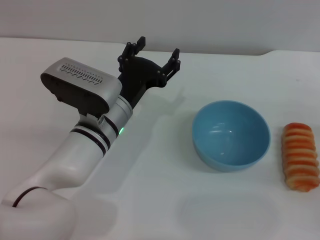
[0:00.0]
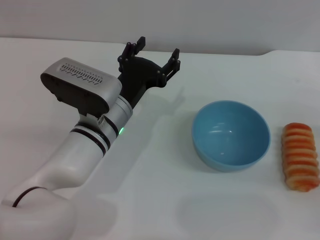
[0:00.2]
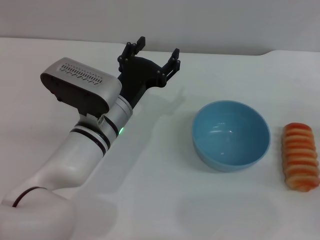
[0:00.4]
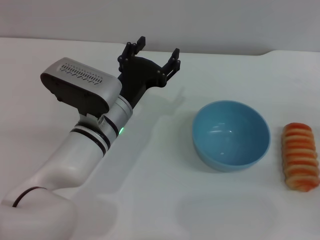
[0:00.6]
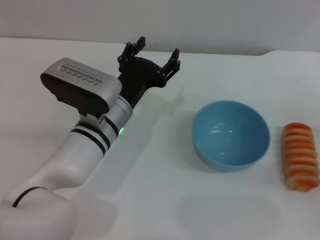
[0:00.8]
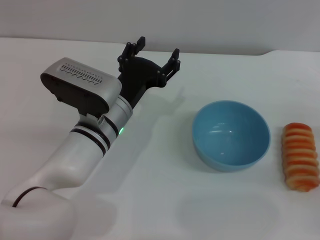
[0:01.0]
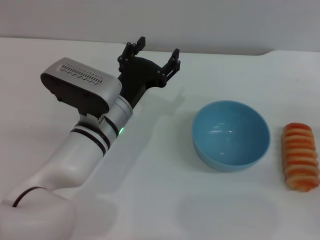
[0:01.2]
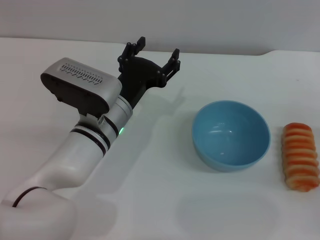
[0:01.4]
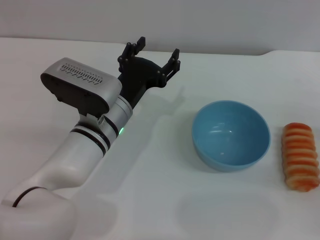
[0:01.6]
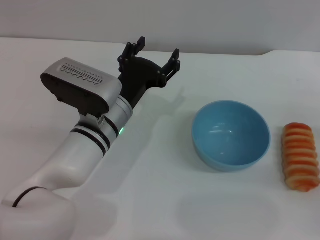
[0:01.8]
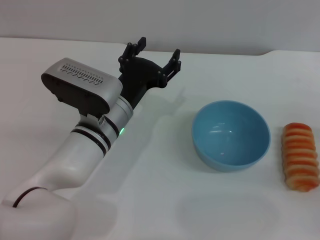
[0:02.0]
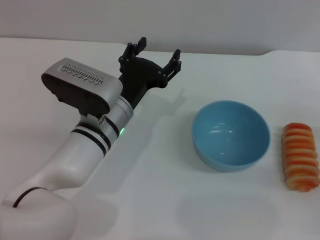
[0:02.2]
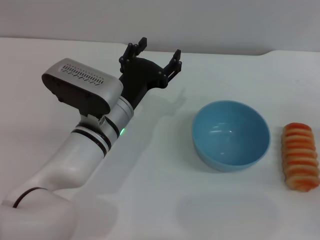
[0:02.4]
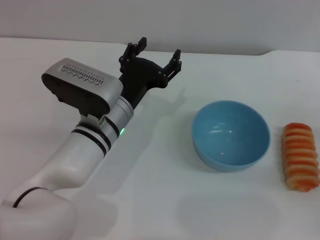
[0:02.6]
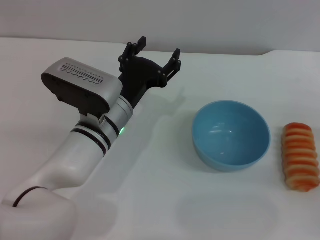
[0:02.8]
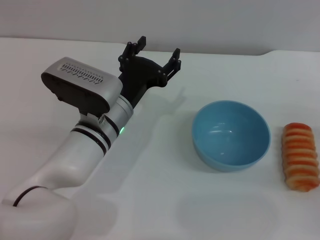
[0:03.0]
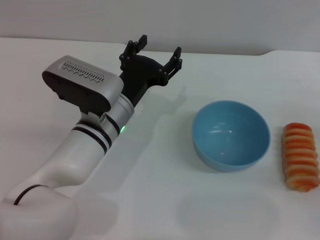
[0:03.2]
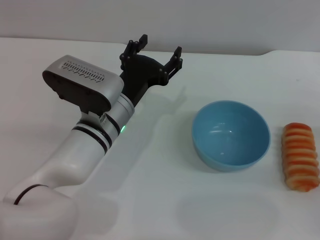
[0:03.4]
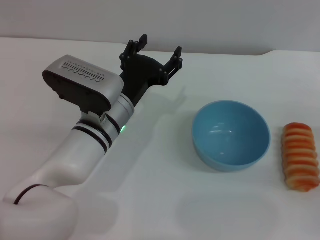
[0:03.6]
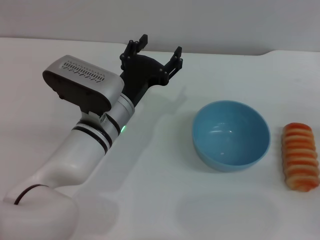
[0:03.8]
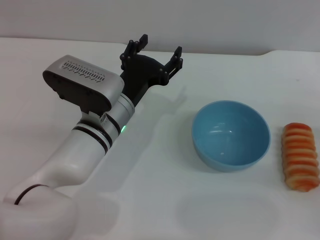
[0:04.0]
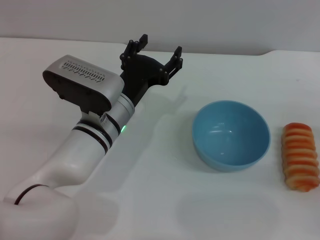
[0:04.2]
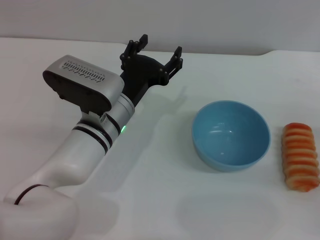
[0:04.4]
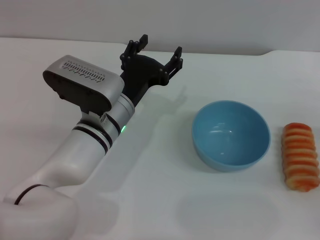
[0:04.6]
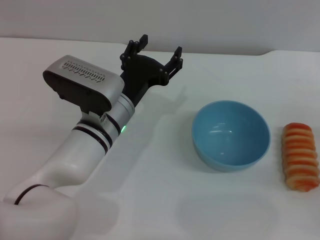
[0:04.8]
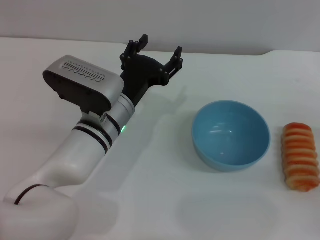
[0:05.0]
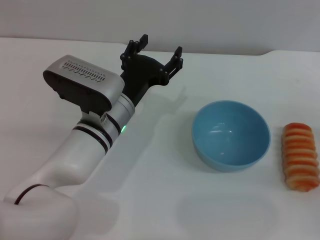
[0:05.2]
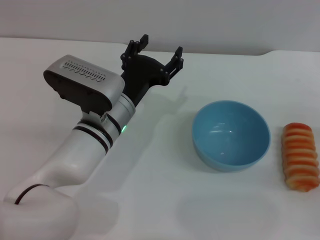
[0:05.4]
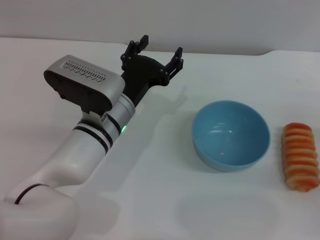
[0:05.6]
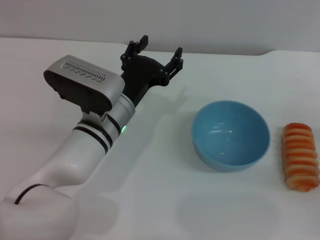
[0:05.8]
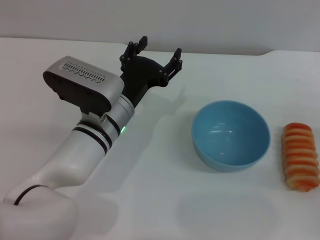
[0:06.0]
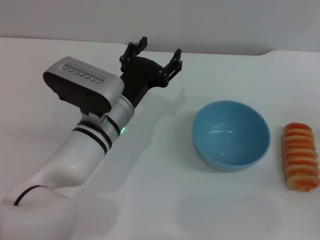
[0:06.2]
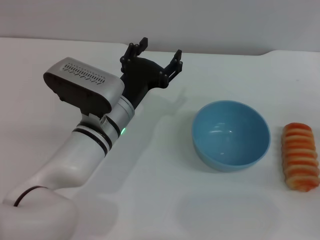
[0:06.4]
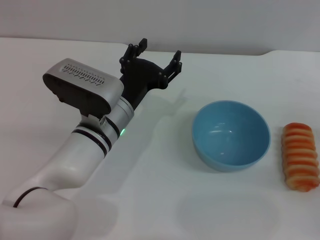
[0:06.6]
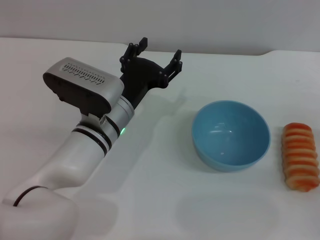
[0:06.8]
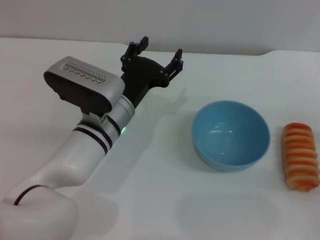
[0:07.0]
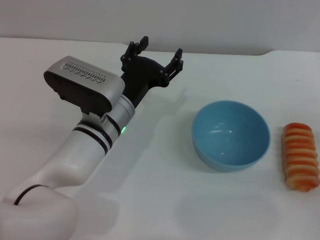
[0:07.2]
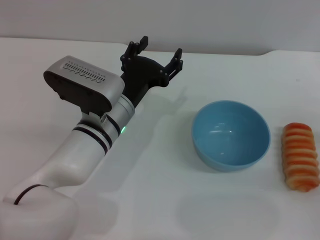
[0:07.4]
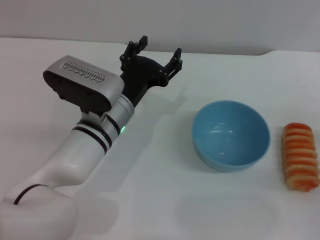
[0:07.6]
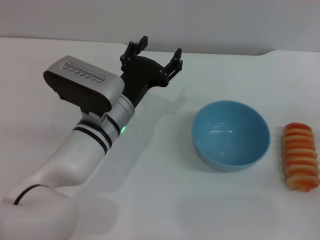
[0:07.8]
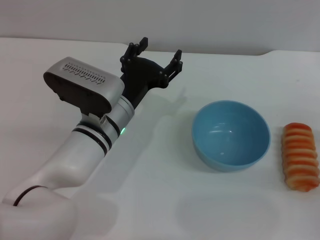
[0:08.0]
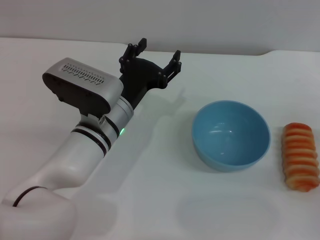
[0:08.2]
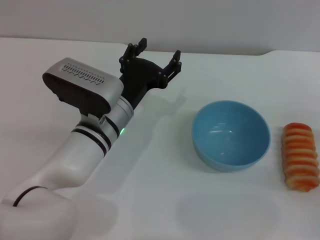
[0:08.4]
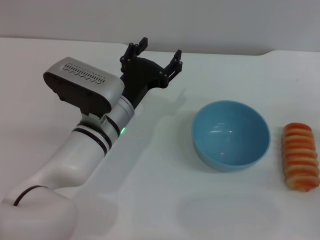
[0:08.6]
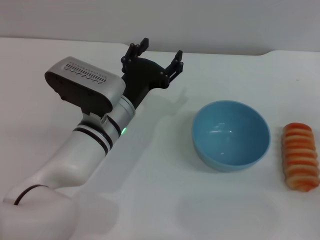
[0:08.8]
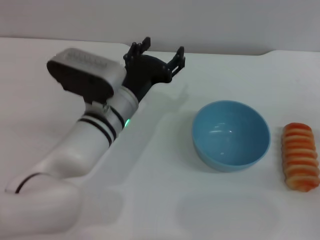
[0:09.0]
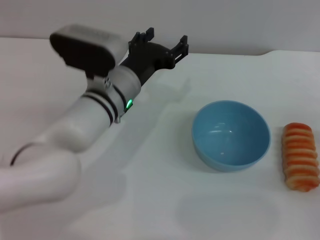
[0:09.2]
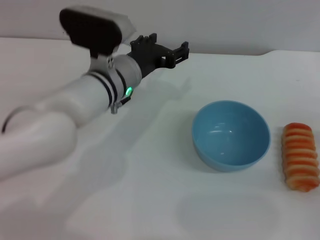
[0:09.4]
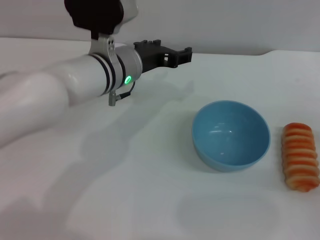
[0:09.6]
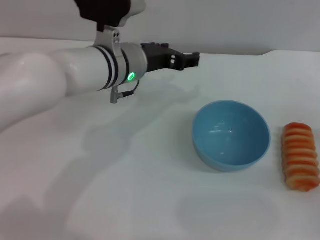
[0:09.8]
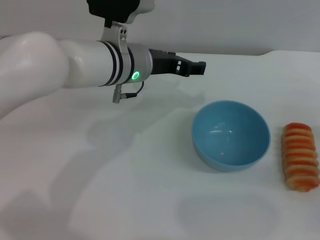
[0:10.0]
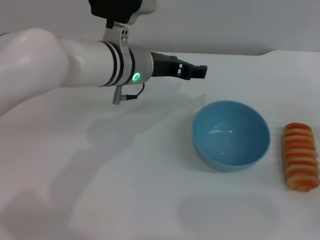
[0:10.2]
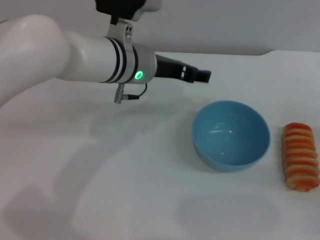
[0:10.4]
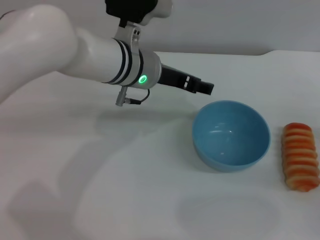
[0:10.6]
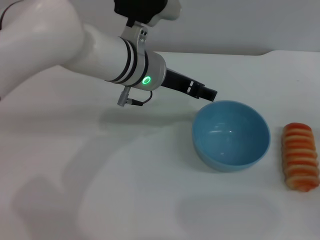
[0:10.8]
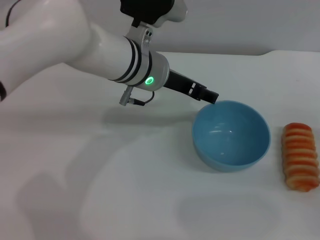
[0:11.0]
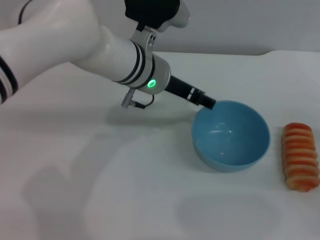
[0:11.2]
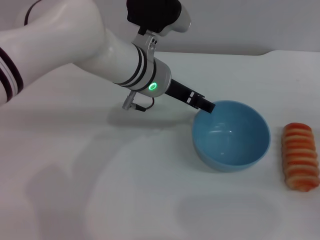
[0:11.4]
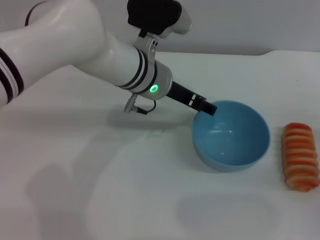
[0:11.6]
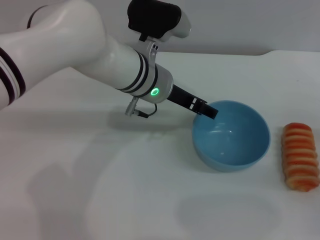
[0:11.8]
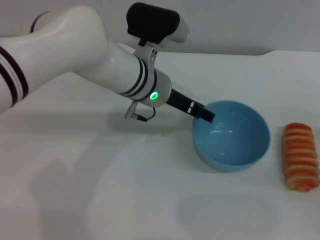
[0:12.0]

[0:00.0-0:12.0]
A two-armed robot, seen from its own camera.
Task of the whole recording: put the bread into the blue bowl and pour it out repeatedly.
0:00.0 to 0:06.0: Neither gripper changes place.
0:06.0 to 0:07.6: Both grippers stay put.
0:07.6 to 0:09.0: The grippers make only small movements.
0:09.0 to 0:10.4: The left gripper shifts about 10 cm upward and forward.
0:10.4 to 0:12.0: The grippers move only a little.

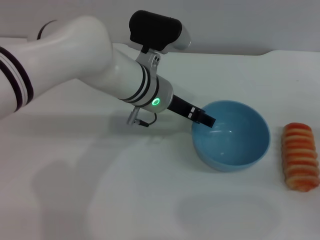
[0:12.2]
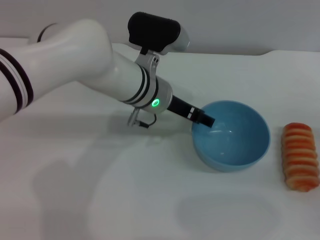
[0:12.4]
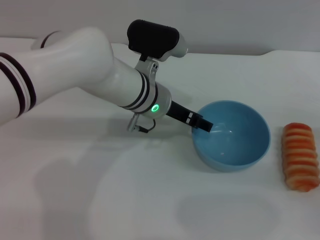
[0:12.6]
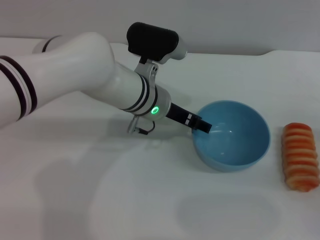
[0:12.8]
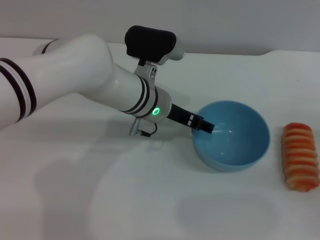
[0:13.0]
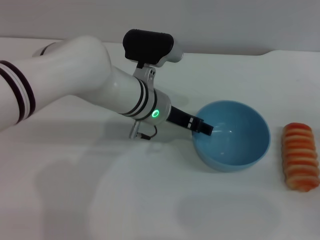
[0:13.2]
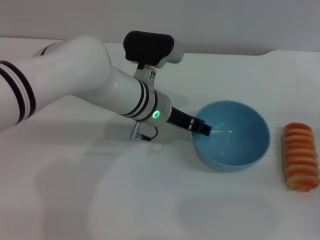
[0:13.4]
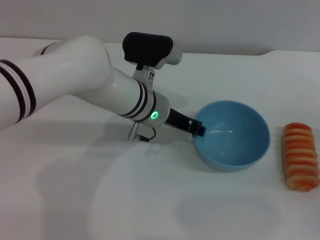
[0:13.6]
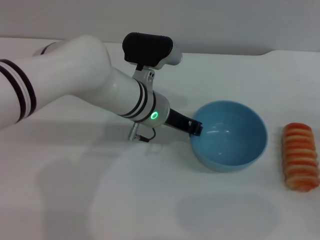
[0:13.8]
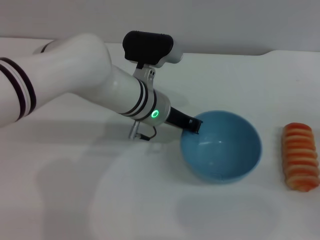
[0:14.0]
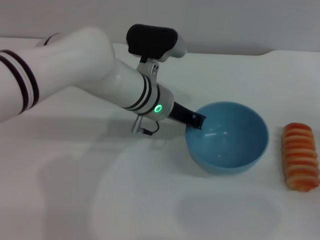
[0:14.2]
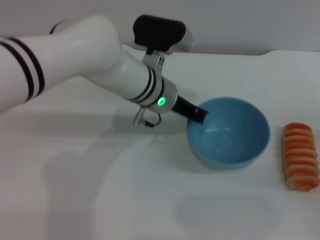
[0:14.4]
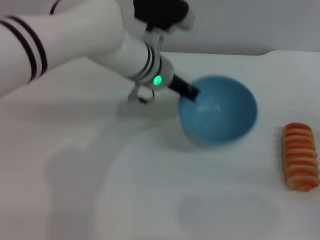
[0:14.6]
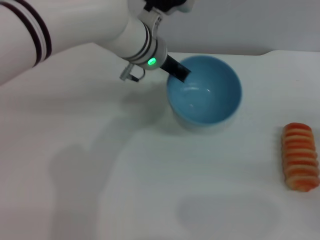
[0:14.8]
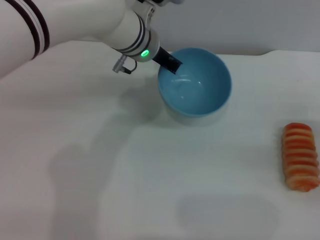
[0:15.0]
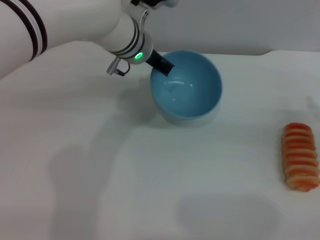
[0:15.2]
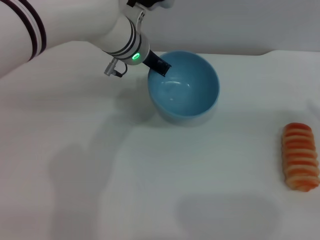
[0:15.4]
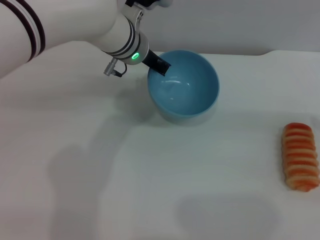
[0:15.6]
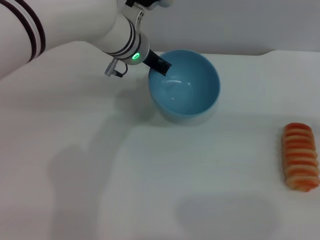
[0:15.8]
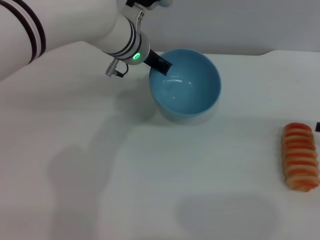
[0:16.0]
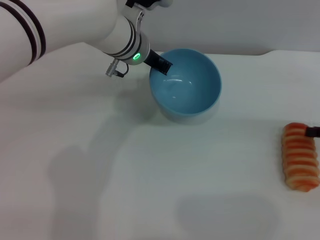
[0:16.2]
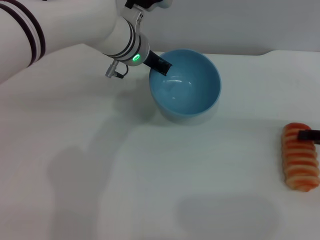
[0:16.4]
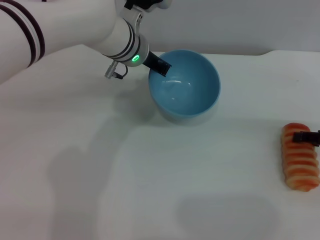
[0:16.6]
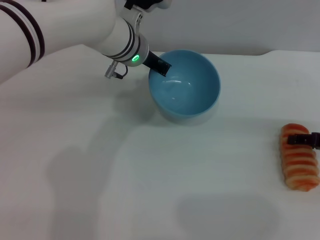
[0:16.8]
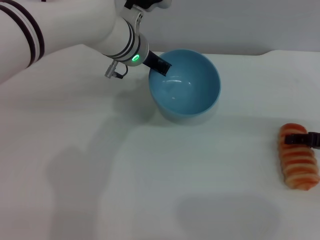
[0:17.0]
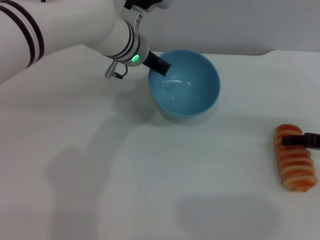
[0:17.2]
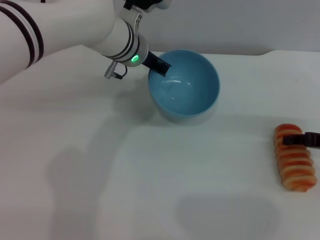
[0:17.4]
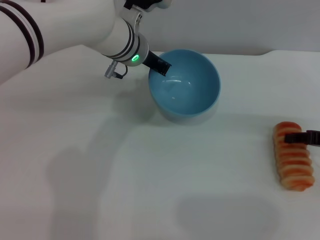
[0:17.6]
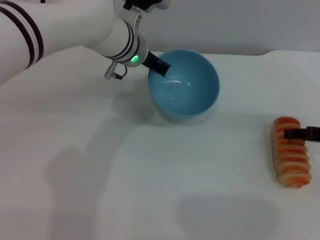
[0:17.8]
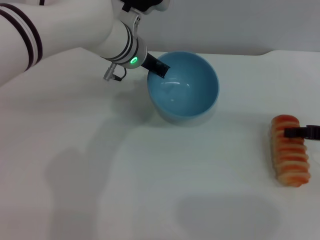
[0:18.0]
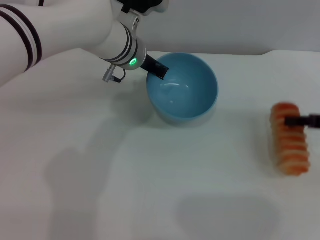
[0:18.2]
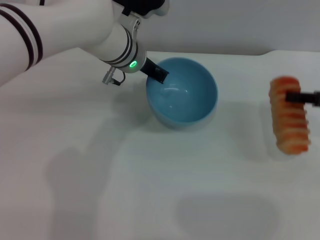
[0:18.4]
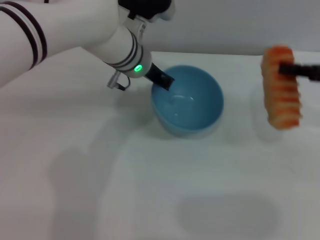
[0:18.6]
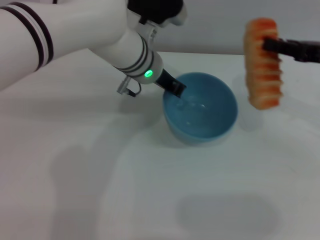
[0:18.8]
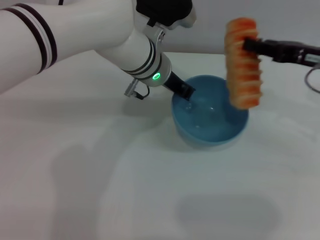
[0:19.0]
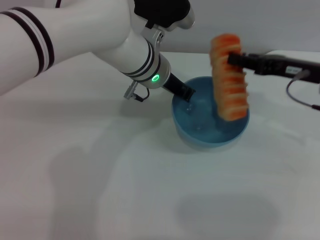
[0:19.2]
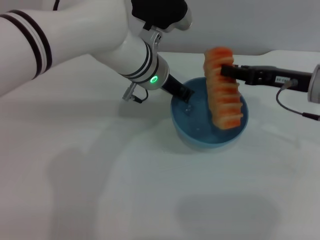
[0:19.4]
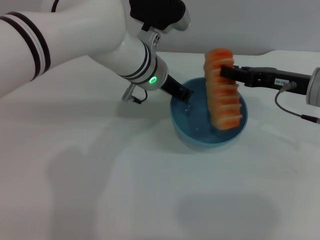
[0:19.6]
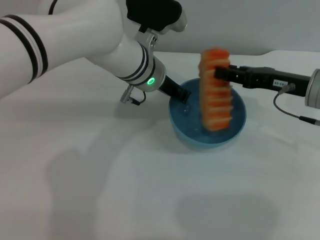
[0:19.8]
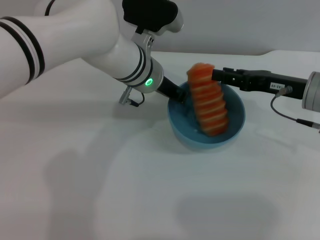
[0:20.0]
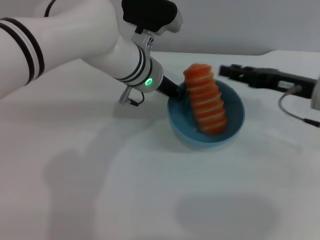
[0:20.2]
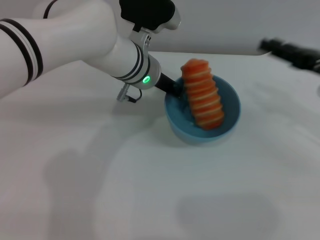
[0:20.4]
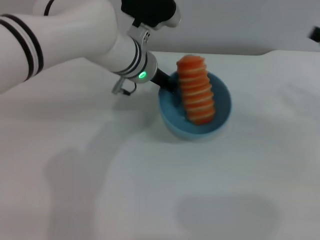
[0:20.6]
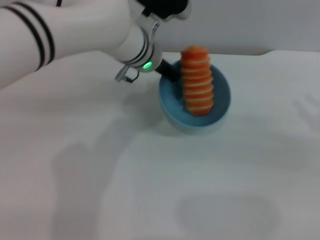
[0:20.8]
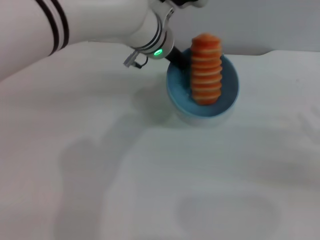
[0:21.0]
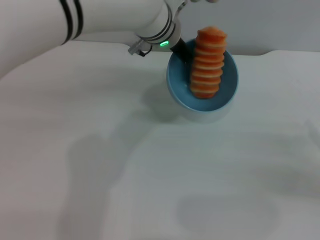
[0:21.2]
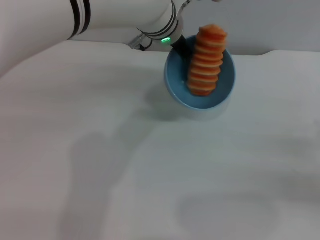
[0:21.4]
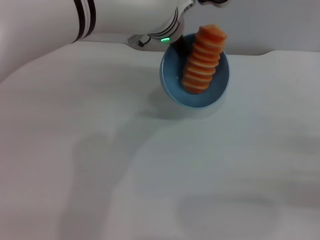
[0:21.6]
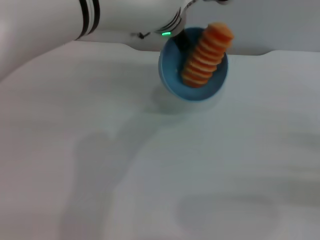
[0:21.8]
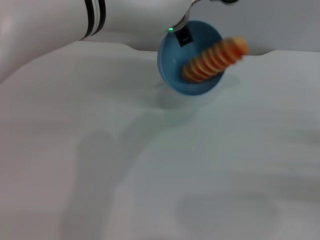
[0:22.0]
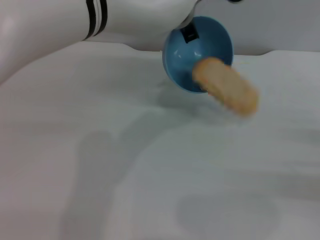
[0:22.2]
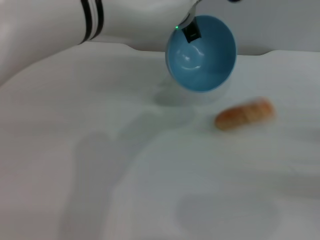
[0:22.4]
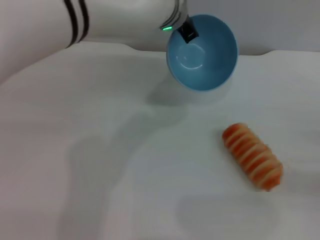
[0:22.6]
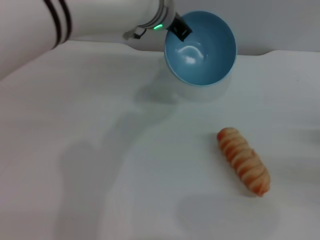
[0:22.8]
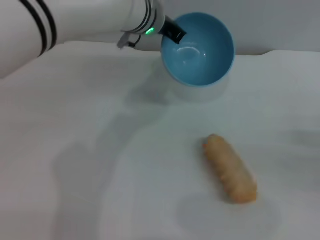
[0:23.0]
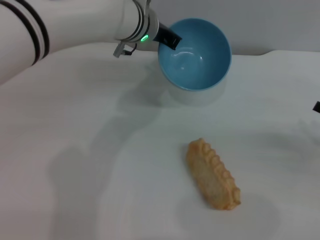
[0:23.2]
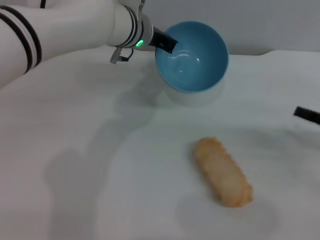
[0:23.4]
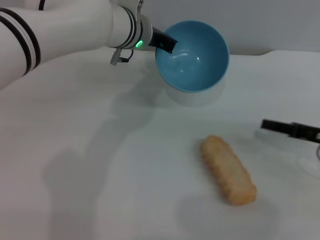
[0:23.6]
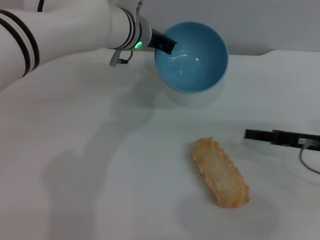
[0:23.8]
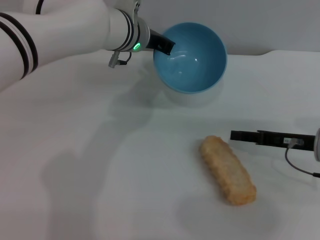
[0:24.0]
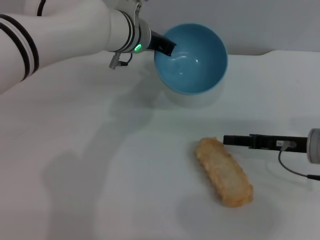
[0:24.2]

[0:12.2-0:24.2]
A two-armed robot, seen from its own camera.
Task of the whole recording: put the bread into the blue bowl and pour it out repeatedly.
Step, 0:12.2 to 0:14.8: Pick up the bowl with the left gripper.
Step, 0:15.2 to 0:18.6: Pick up the bread with the right gripper.
Step, 0:18.8 to 0:20.2: Place the bread into the bowl.
Step, 0:20.4 to 0:22.4: Pour the bread out of the bowl.
0:12.2 to 0:13.8: The left gripper closes its fingers.
0:13.8 to 0:15.2: The left gripper shifts about 10 cm forward and upward, and closes up; the right gripper heads forward, covering approximately 5 cm.
0:16.6 to 0:18.2: The right gripper closes its fingers.
0:18.2 to 0:19.8: The right gripper moves to the left, approximately 10 cm.
0:19.8 to 0:21.2: The left gripper ends up approximately 5 cm from where it was, while the right gripper goes roughly 20 cm to the right, backward and downward, and opens.
0:22.6 to 0:24.2: The left gripper goes some 5 cm to the left. Meanwhile the right gripper travels to the left and forward by approximately 15 cm.
